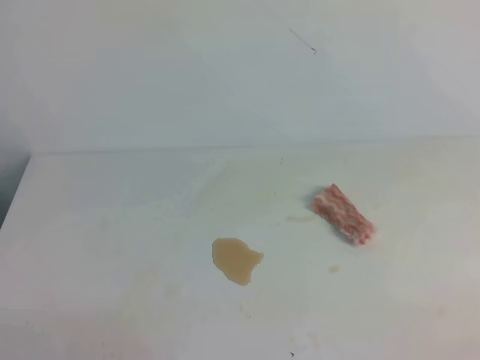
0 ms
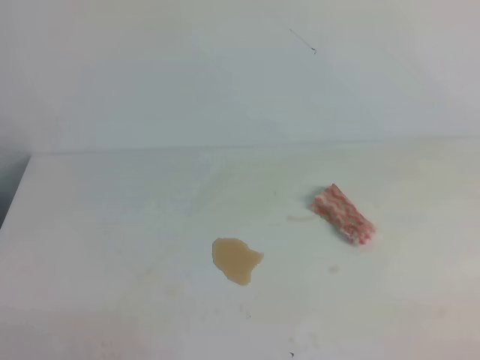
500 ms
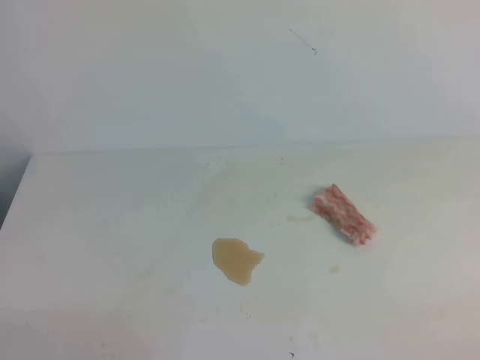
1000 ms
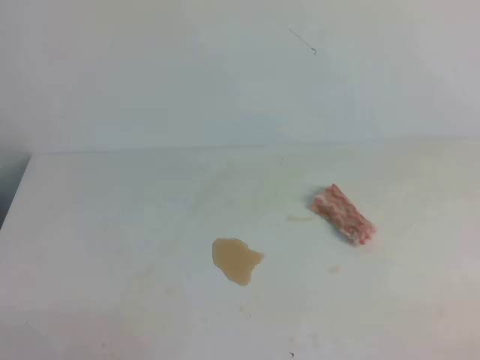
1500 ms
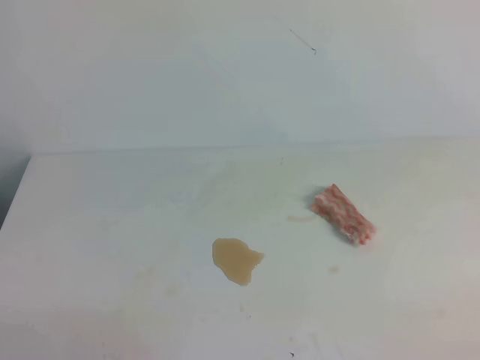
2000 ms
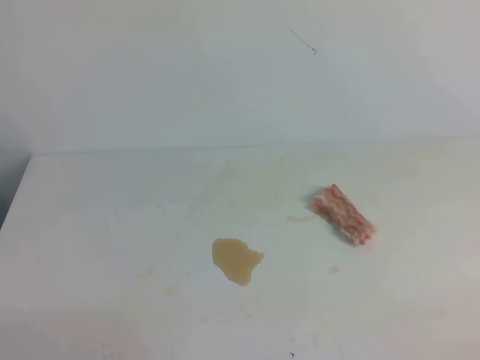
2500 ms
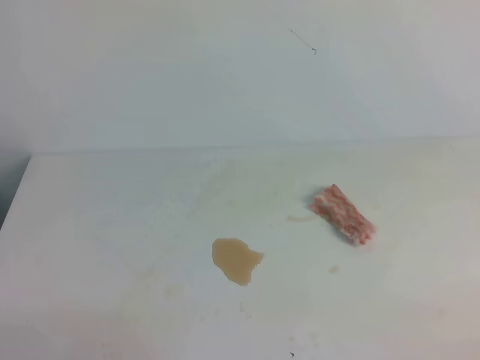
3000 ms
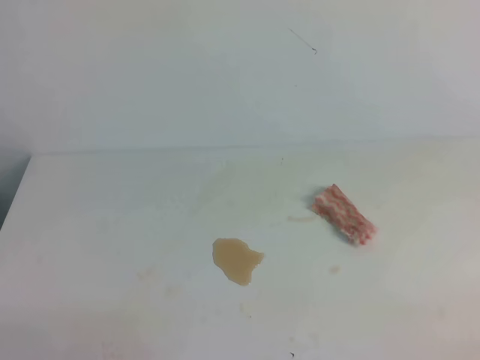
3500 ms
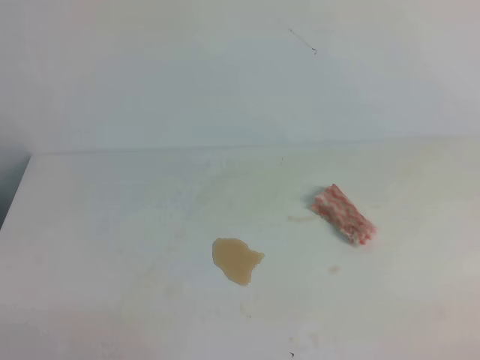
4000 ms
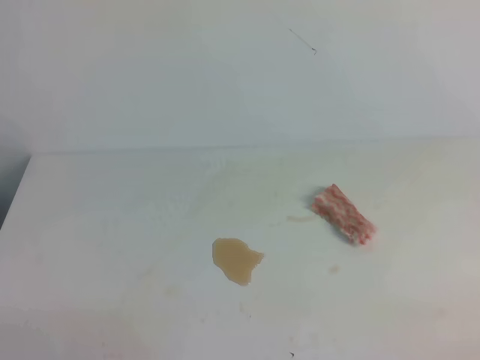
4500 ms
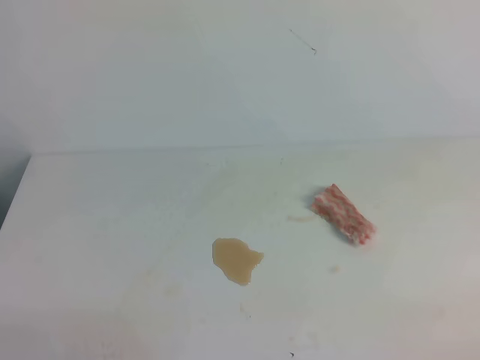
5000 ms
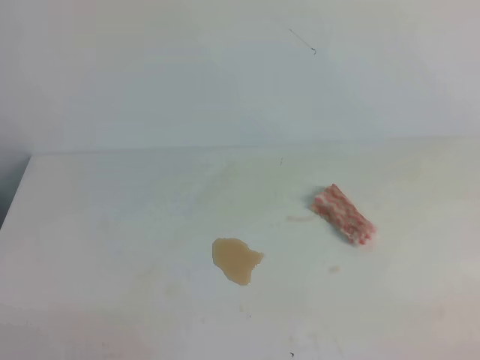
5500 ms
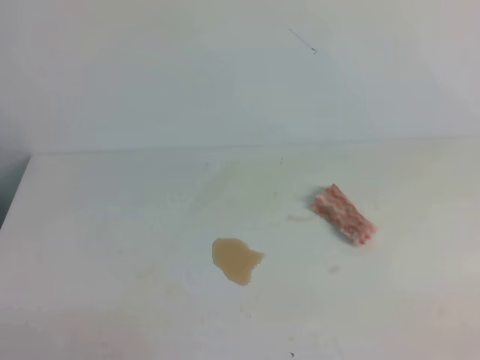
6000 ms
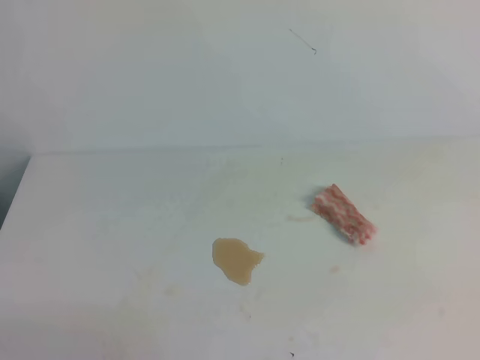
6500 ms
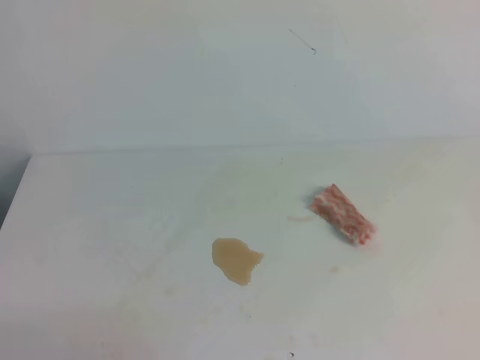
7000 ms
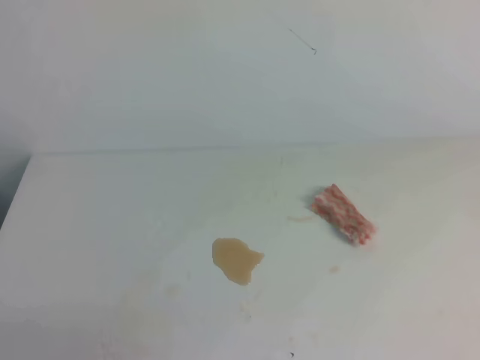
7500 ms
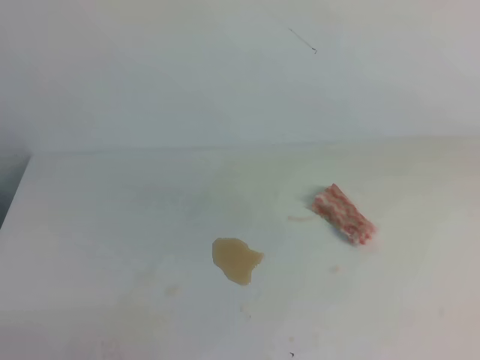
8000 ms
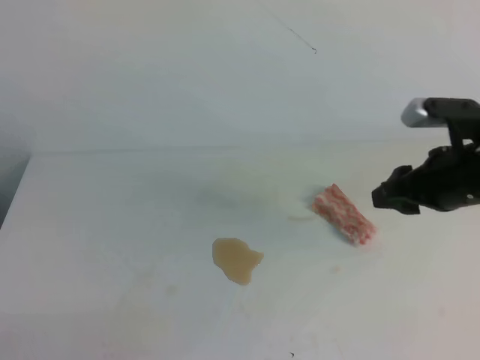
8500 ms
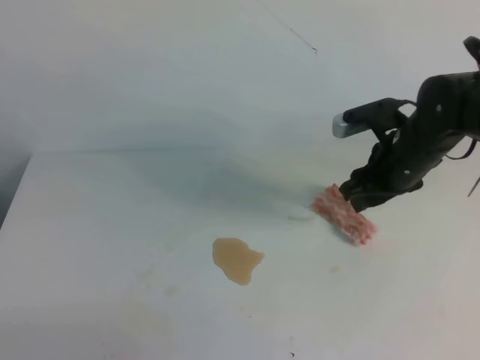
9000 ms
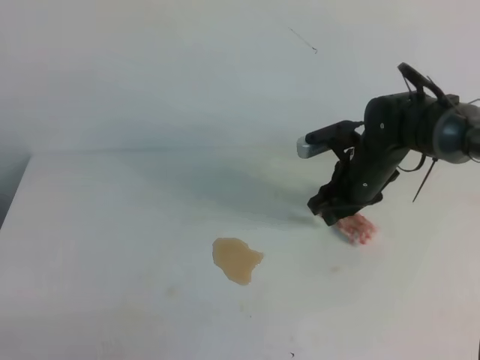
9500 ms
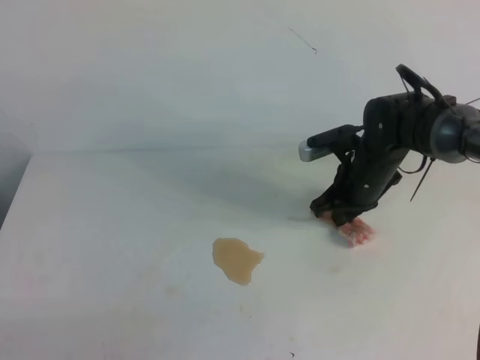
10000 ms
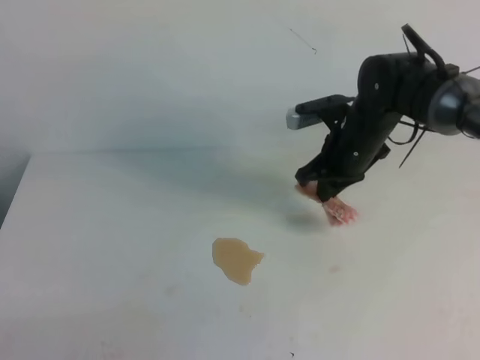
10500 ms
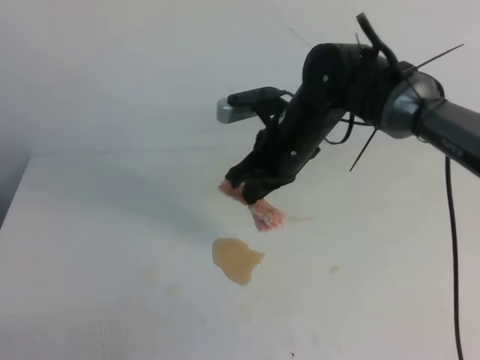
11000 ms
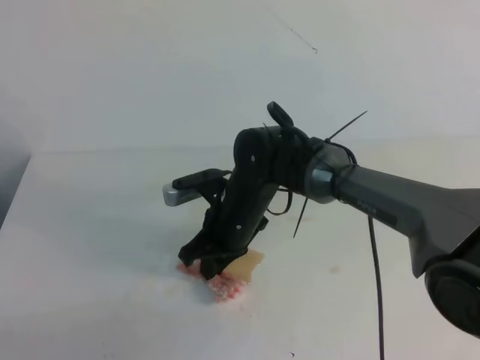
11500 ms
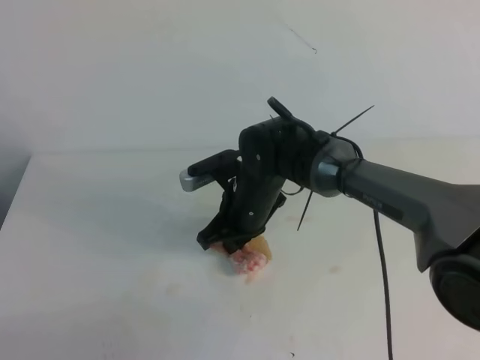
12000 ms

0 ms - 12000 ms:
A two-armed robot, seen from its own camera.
0 ms - 2000 ms: Both grippers stay put.
2000 ms - 4000 ms: Neither gripper changes place.
8000 ms - 10000 ms: The right gripper heads downward, forward and to the left, covering about 30 cm, and closes up.
10000 ms - 12000 ms: The right gripper is displaced to the left by about 15 cm.

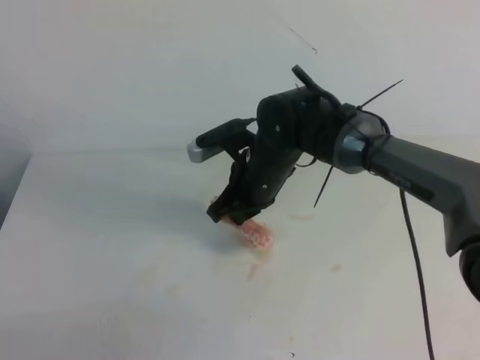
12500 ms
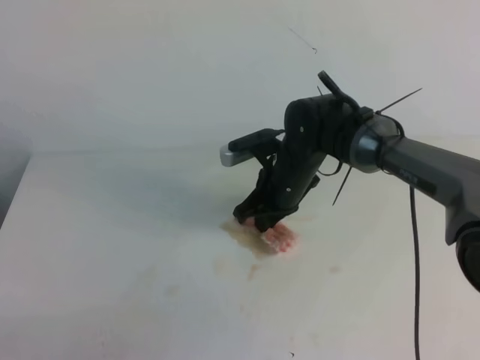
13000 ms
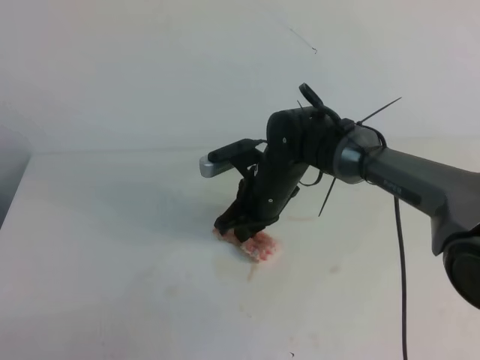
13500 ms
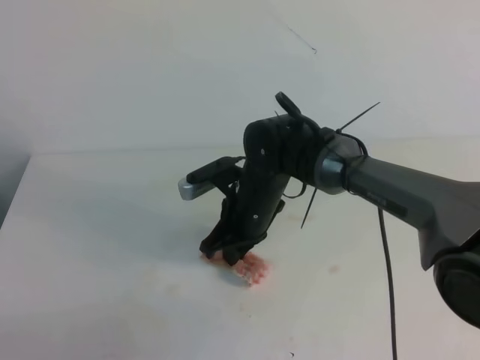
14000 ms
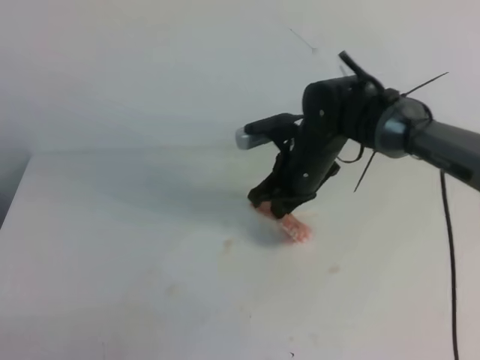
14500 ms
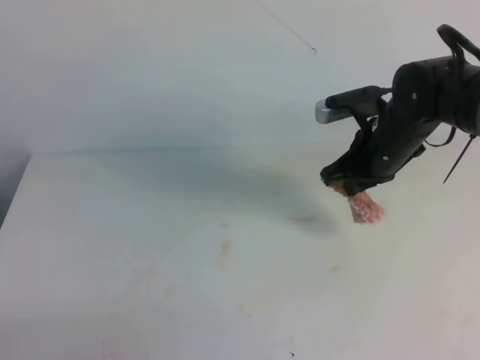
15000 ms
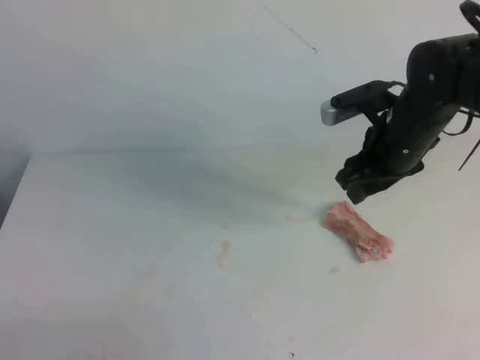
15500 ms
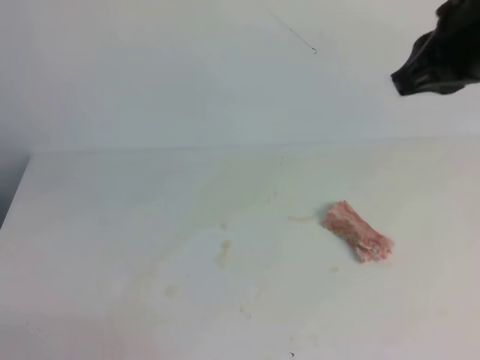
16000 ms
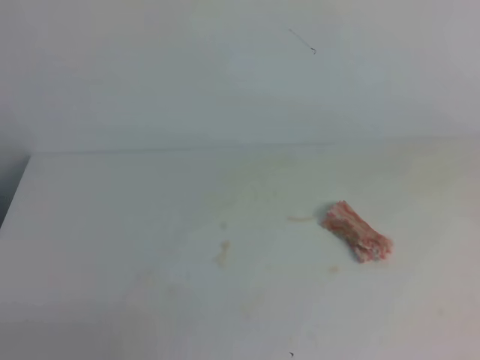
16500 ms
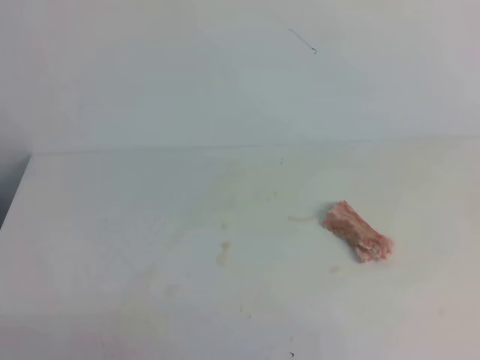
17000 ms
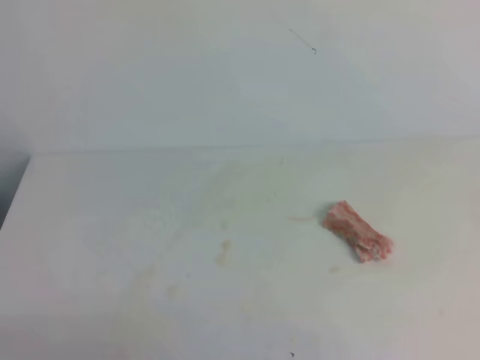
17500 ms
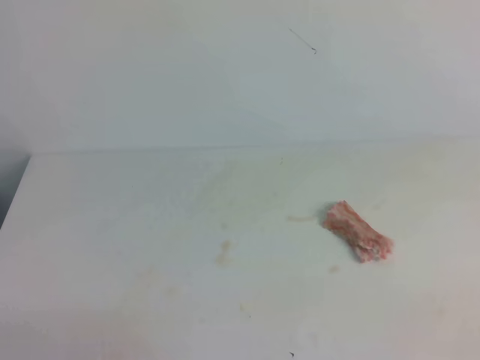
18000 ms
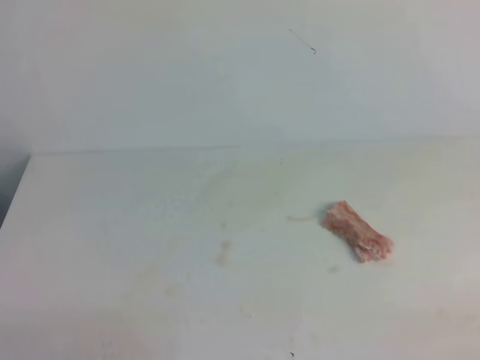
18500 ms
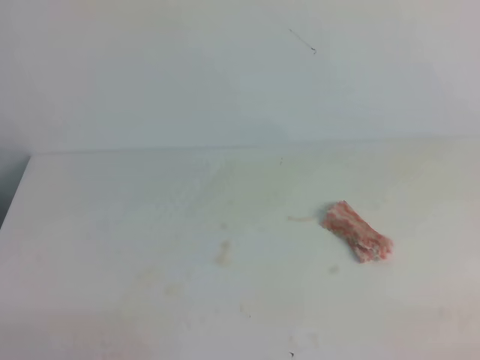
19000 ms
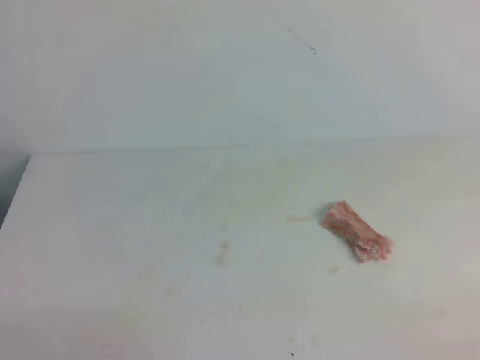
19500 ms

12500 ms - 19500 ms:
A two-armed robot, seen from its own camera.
12500 ms - 14500 ms: The right gripper moves to the right, some 5 cm.
14500 ms - 16000 ms: The right gripper goes about 30 cm upward, to the right and backward, and opens, then closes once more.
16000 ms - 17500 ms: The right gripper goes some 25 cm backward, to the right and downward.
